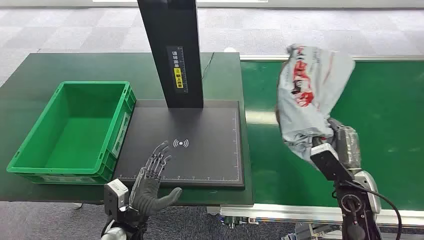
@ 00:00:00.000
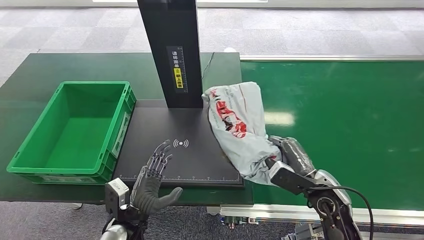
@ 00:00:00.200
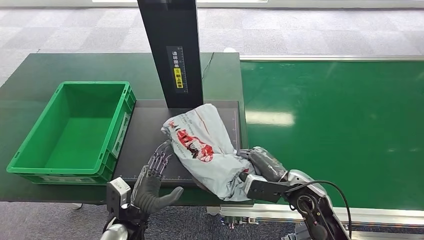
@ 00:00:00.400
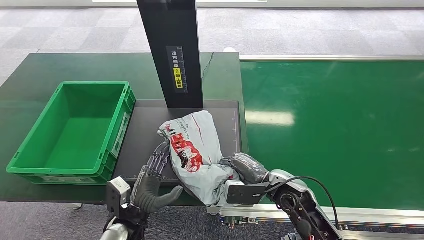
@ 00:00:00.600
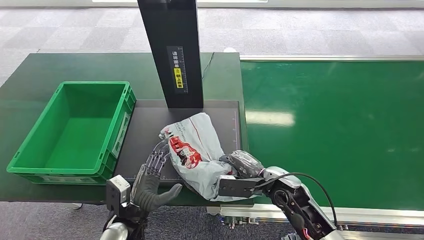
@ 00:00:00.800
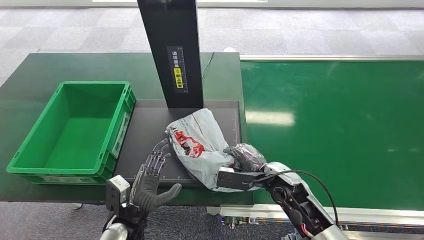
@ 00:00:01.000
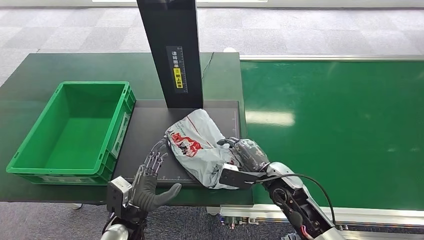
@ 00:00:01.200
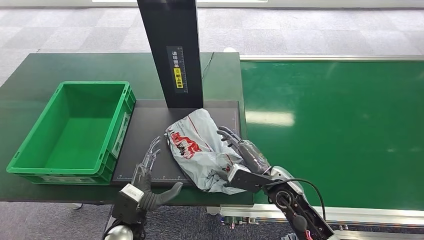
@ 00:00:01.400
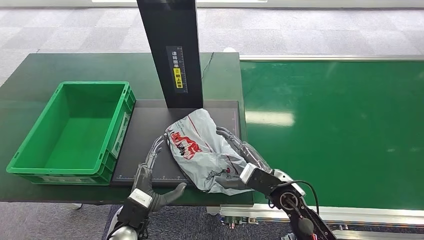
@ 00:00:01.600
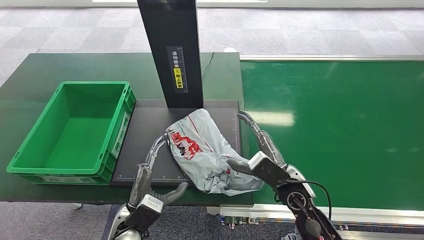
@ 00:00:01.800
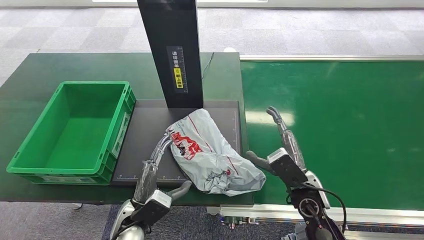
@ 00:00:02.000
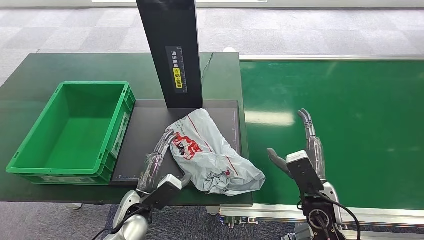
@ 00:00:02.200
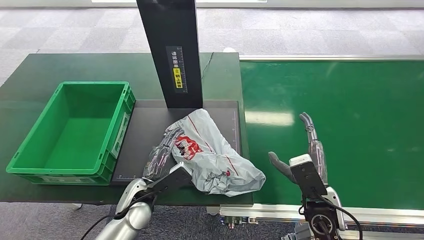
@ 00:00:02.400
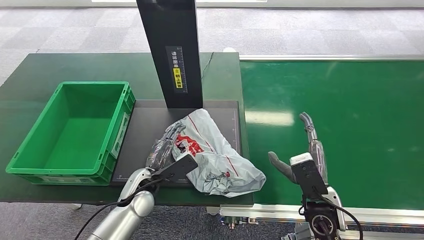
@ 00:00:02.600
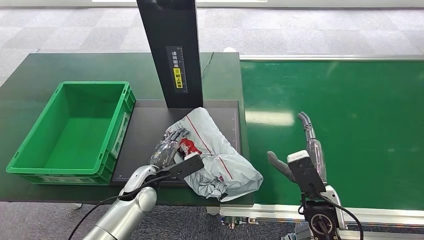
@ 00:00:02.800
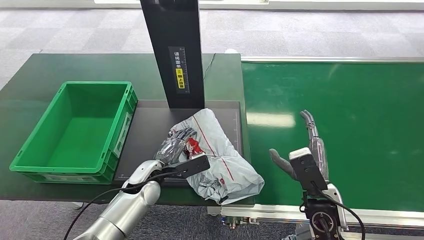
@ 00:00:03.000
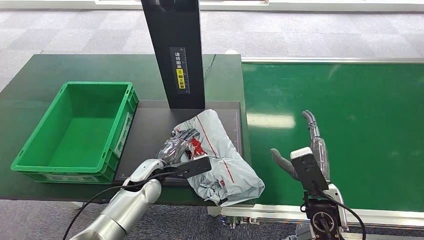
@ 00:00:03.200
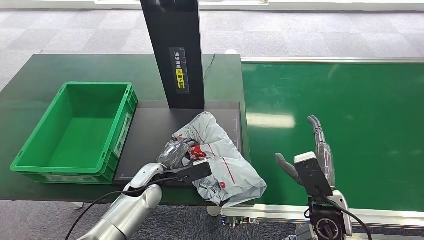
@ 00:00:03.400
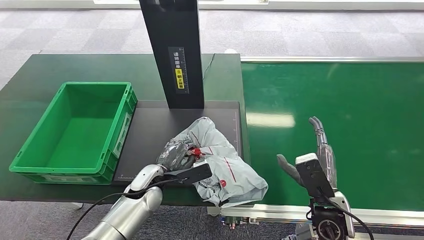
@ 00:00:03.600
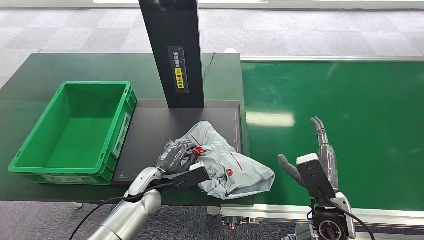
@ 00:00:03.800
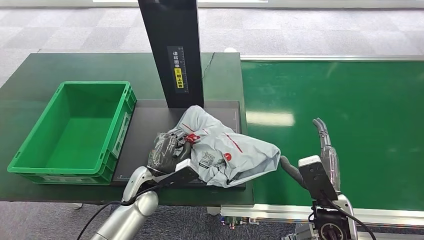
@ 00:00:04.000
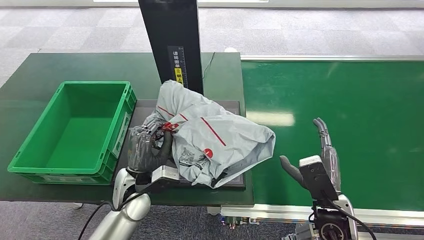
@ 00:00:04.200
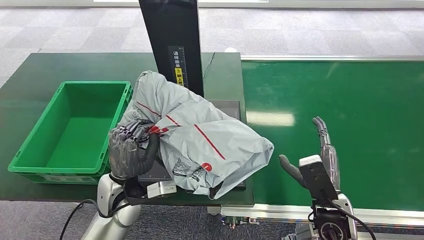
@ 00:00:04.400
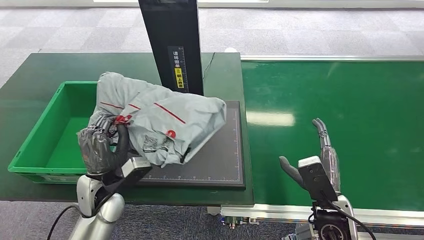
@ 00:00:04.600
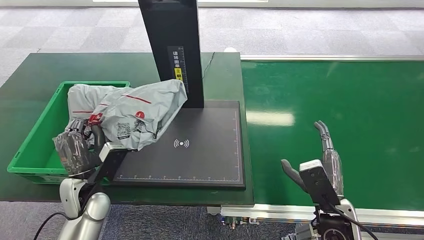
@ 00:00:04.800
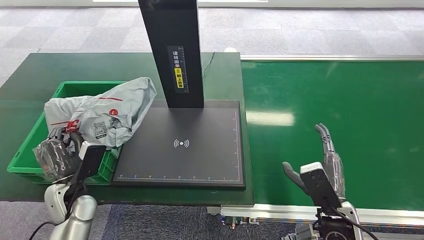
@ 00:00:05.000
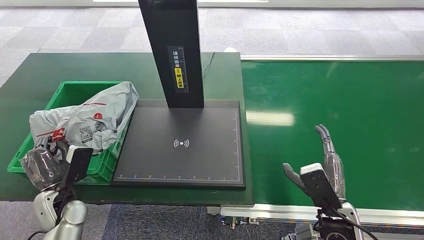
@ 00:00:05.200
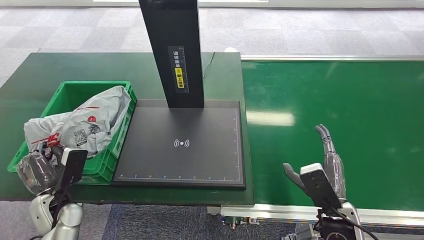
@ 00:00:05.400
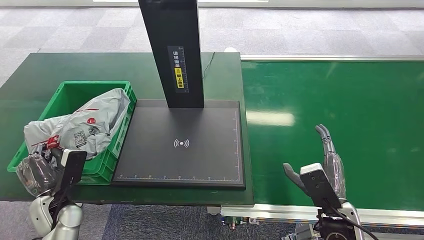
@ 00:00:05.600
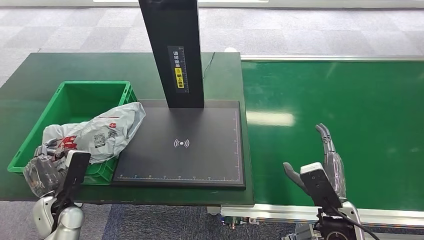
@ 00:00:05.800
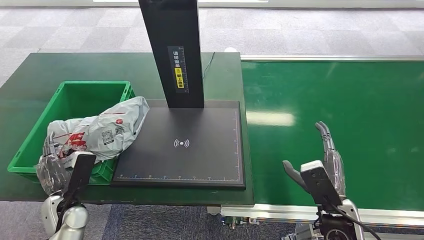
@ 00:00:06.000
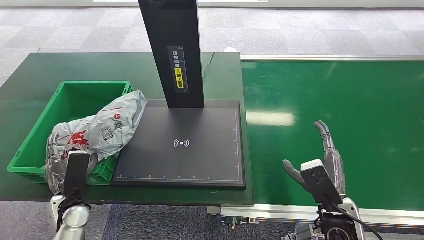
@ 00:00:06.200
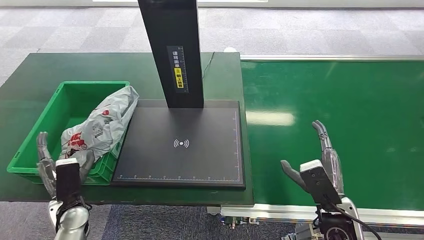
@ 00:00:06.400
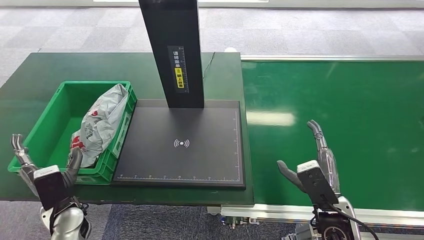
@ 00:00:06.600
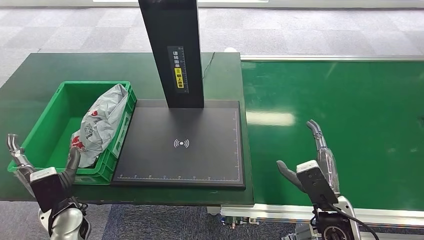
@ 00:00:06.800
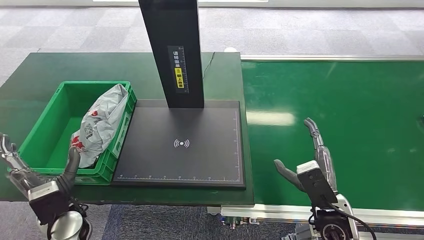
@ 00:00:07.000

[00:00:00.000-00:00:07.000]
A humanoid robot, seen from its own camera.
Step, 00:00:00.000 to 00:00:00.200: Pick up the package from the conveyor belt.
00:00:01.400 to 00:00:02.800: The right hand travels backward by about 5 cm, while the left hand travels forward by about 10 cm.
00:00:02.800 to 00:00:04.200: The left hand ends up approximately 5 cm from where it was.
00:00:05.600 to 00:00:07.000: The left hand goes some 5 cm to the right.
